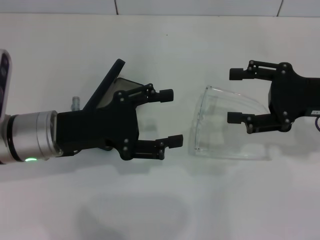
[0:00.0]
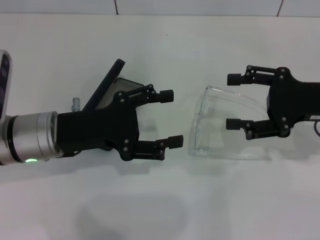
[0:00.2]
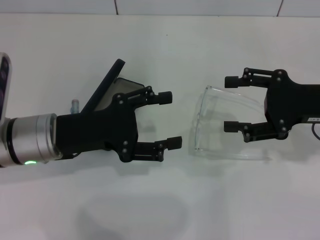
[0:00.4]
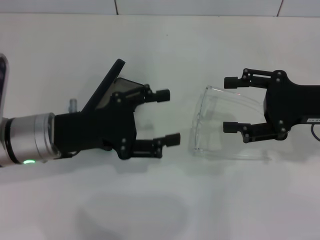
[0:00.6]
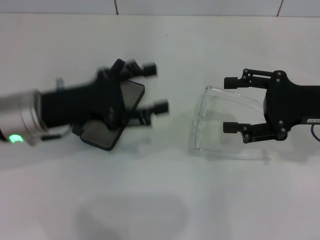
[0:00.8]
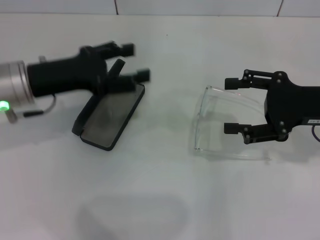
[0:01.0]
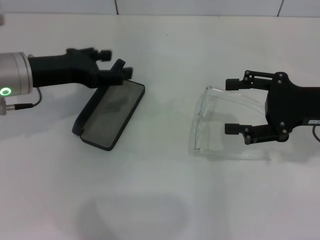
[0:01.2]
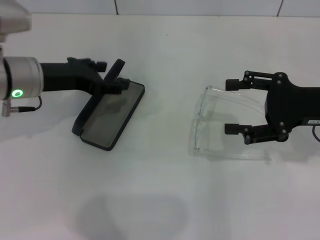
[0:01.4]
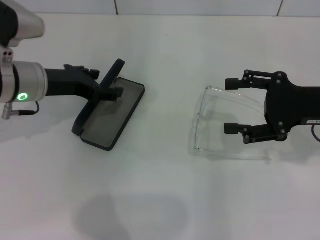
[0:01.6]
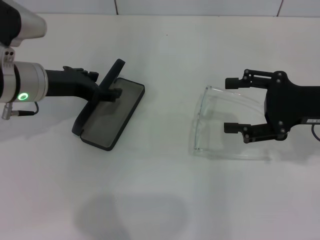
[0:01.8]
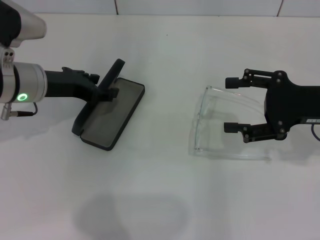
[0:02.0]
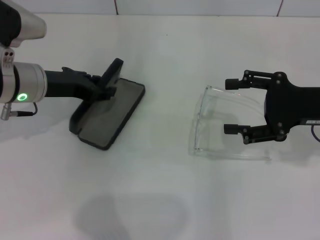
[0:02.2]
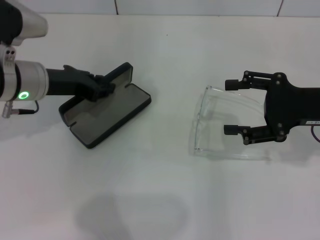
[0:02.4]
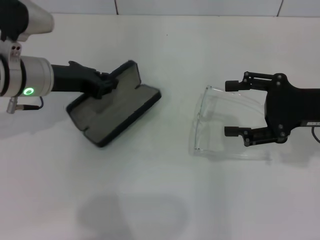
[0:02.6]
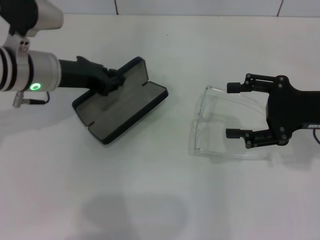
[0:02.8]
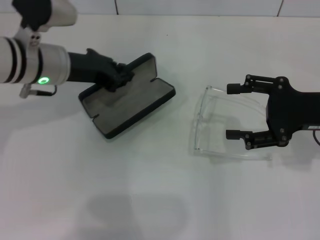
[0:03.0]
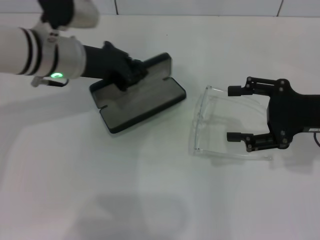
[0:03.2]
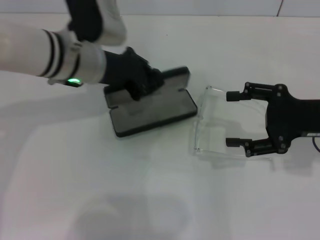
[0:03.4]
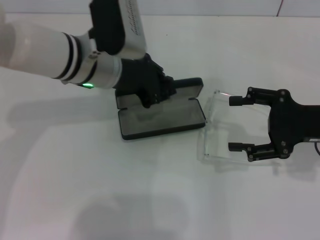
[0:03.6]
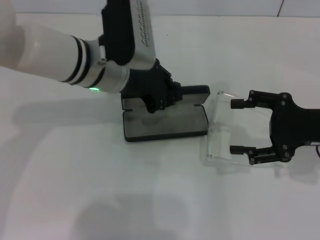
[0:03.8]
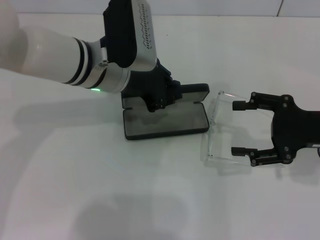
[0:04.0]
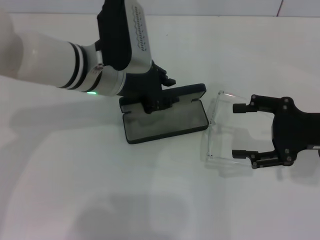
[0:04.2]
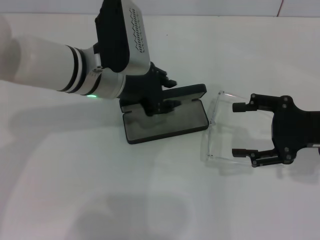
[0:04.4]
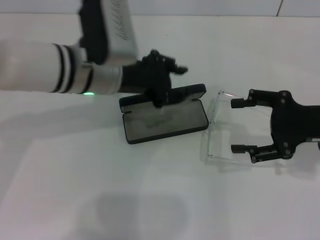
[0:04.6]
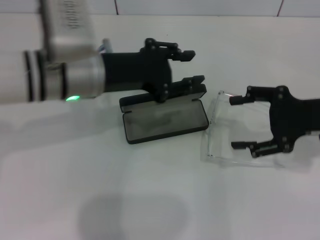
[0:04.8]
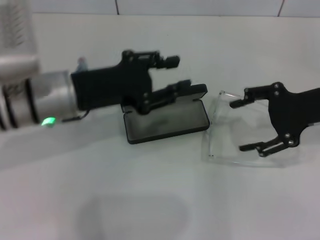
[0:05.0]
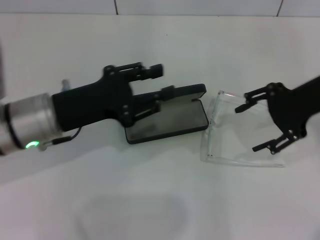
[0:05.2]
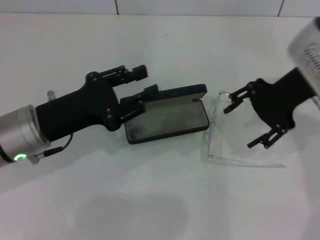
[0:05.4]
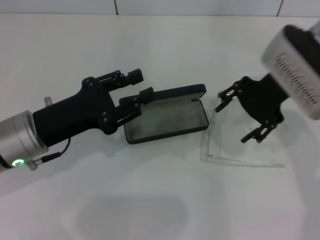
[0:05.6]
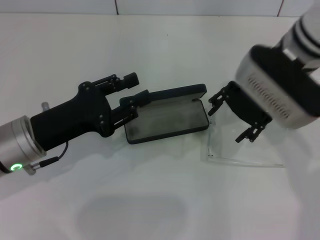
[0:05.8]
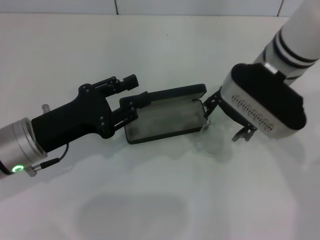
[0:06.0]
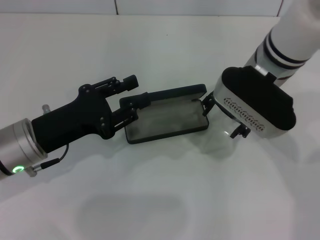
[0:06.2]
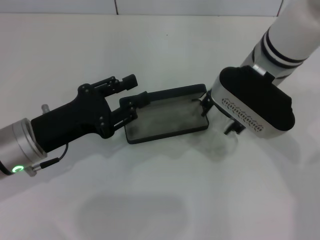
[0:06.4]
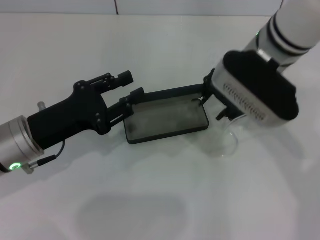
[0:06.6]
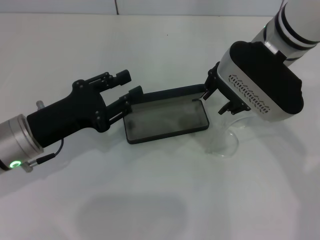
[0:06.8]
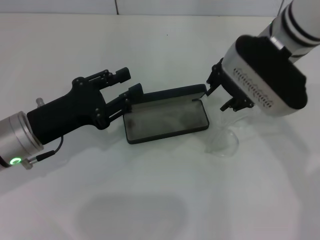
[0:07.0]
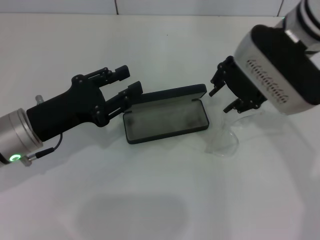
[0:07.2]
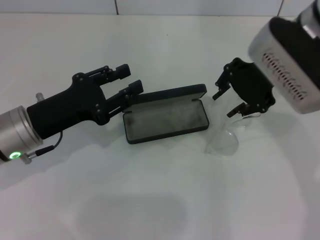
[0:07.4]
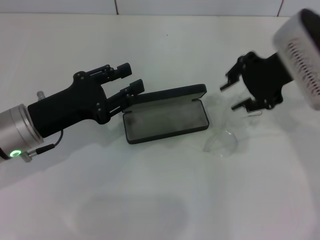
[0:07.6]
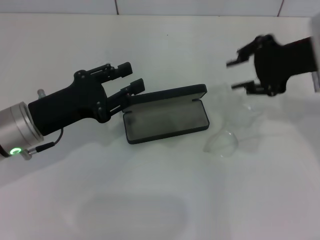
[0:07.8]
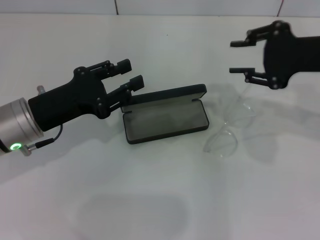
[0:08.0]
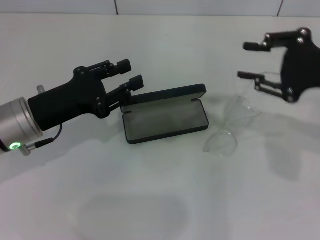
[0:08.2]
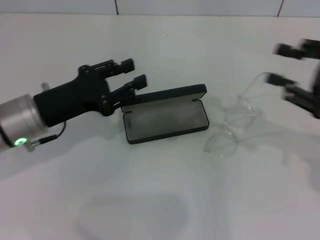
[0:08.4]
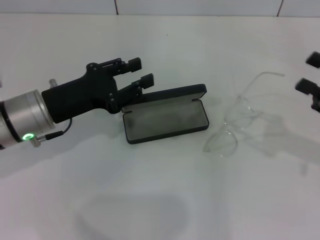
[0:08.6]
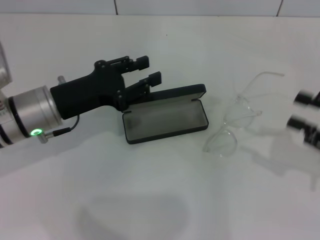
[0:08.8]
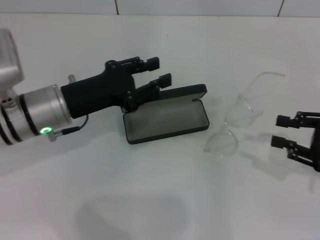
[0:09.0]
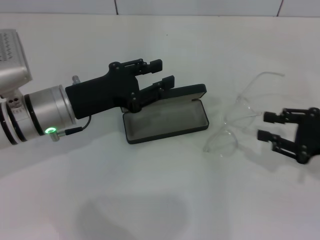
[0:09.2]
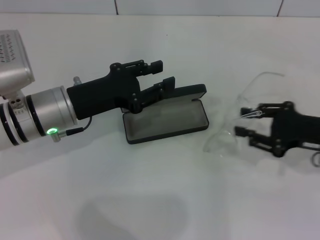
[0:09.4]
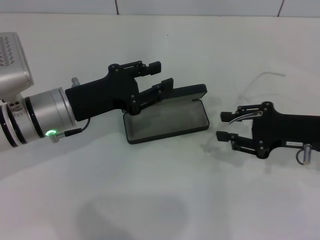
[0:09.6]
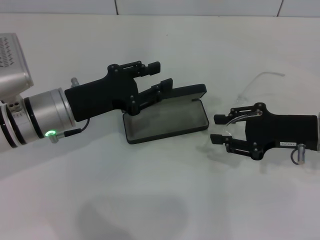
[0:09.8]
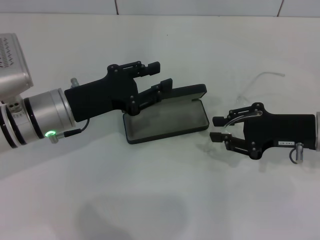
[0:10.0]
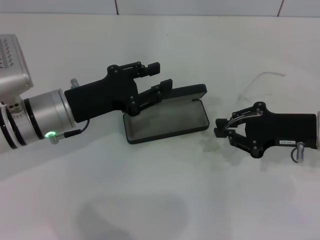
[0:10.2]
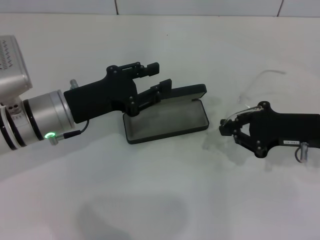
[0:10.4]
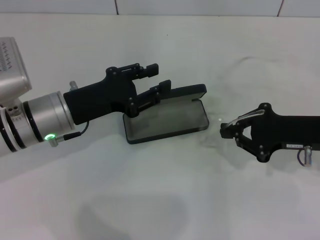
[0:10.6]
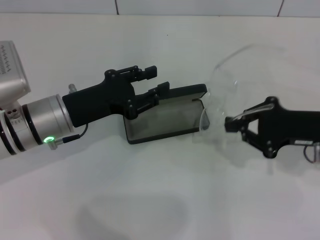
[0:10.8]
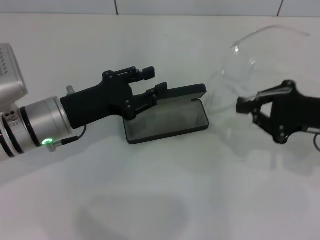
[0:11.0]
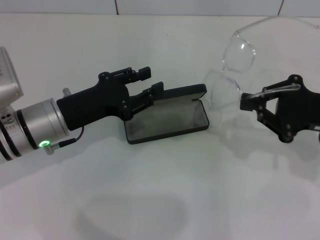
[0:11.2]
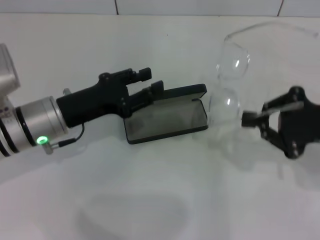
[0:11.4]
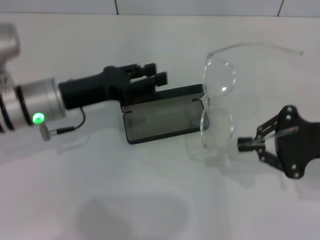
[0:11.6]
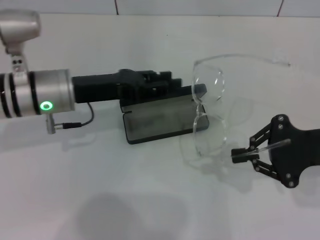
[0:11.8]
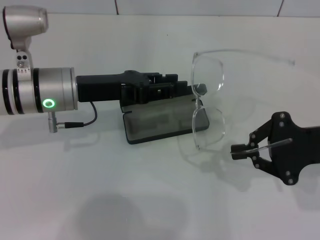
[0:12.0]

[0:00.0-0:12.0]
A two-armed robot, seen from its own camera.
Step, 0:00.0 to 0:02.2: Grab the glasses case with your left hand.
Step, 0:02.4 to 0:04.0: Place the glasses case in the center of the table with your left hand.
Step, 0:04.2 to 0:10.0: Grab the eyeglass frame with your right hand.
0:00.0 to 0:01.6: The left gripper goes roughly 10 cm forward.
0:01.6 to 0:03.0: The left gripper closes.
0:03.0 to 0:04.4: The left gripper is displaced to the right by roughly 10 cm.
0:04.4 to 0:06.0: The right gripper shifts some 15 cm to the left and forward. The left gripper shifts roughly 15 cm to the left, backward and downward.
0:06.0 to 0:07.6: The right gripper travels to the right by about 5 cm, and closes up.
0:07.6 to 0:09.0: The right gripper moves to the right, downward and backward, roughly 25 cm.
0:09.0 to 0:10.4: The right gripper goes roughly 10 cm to the left and forward.
0:10.4 to 0:12.0: The right gripper moves some 5 cm.

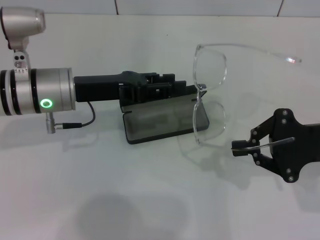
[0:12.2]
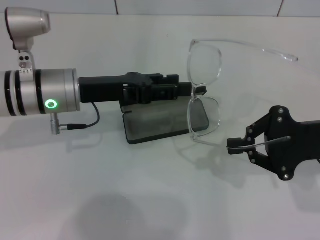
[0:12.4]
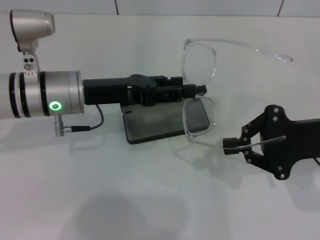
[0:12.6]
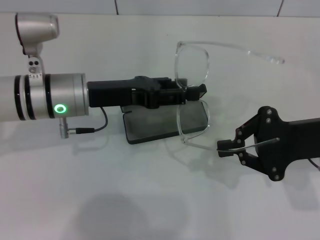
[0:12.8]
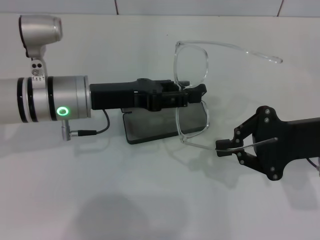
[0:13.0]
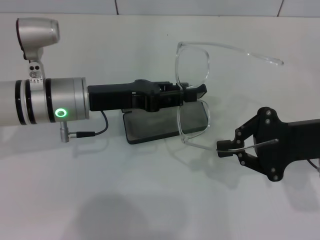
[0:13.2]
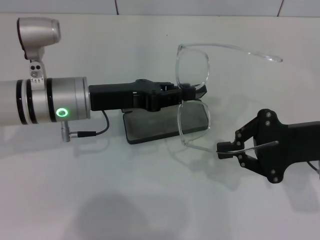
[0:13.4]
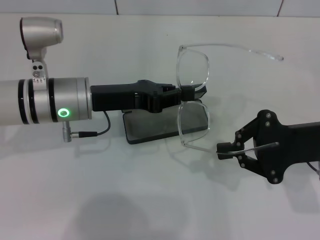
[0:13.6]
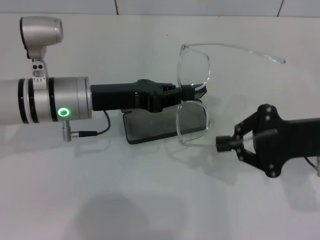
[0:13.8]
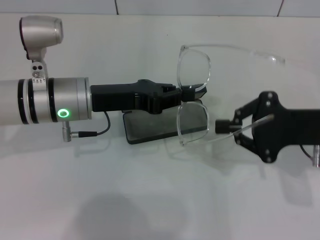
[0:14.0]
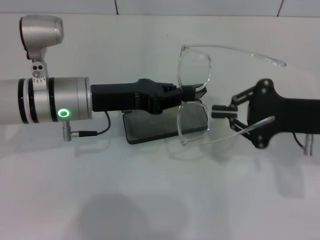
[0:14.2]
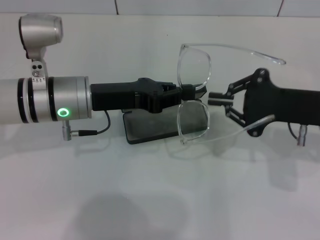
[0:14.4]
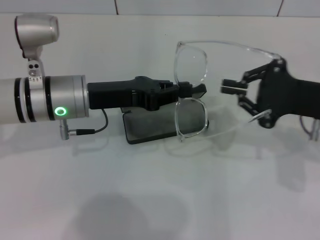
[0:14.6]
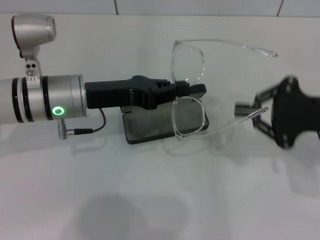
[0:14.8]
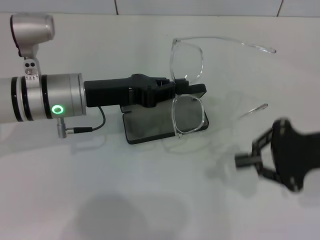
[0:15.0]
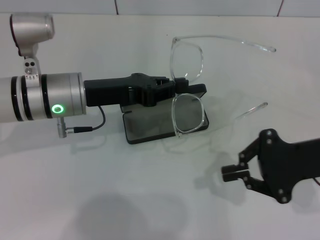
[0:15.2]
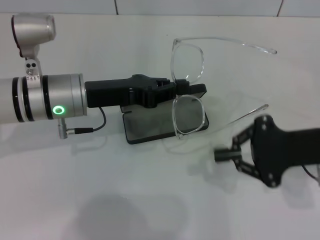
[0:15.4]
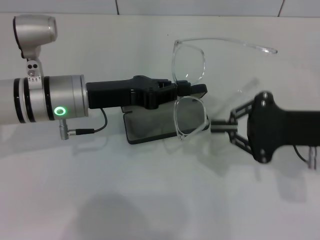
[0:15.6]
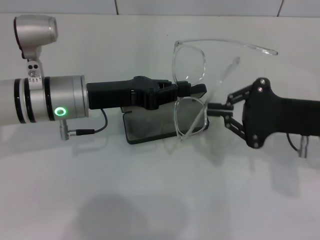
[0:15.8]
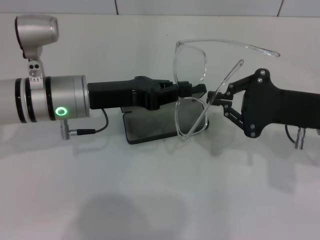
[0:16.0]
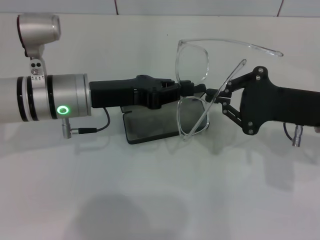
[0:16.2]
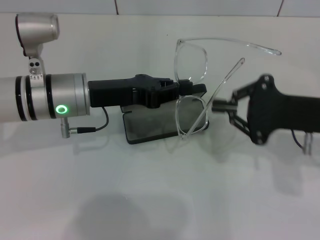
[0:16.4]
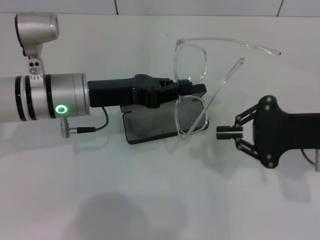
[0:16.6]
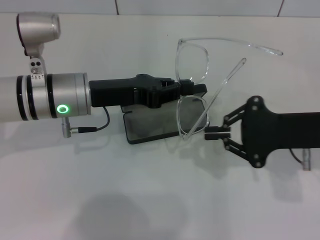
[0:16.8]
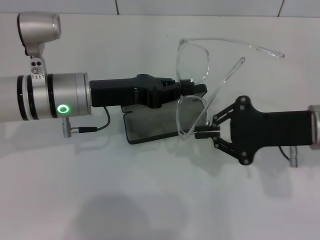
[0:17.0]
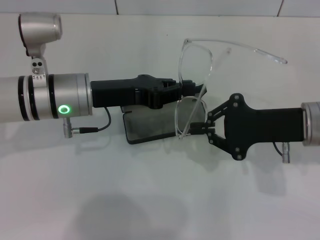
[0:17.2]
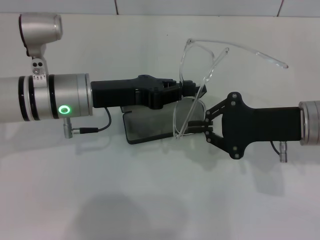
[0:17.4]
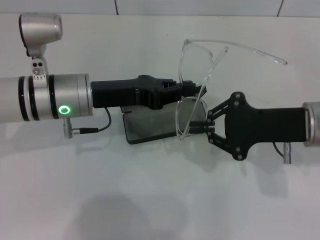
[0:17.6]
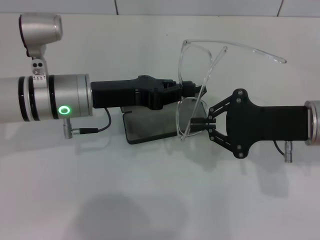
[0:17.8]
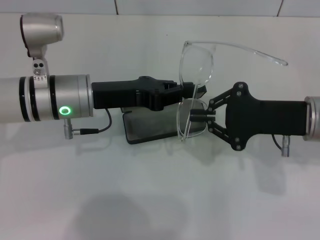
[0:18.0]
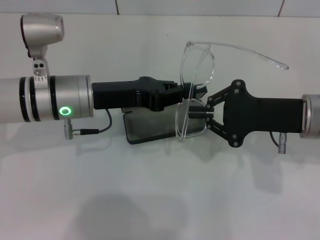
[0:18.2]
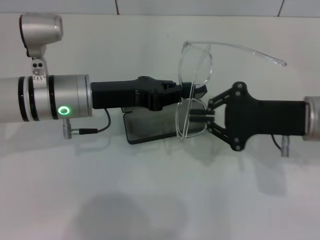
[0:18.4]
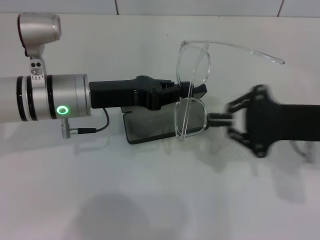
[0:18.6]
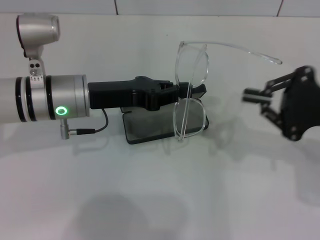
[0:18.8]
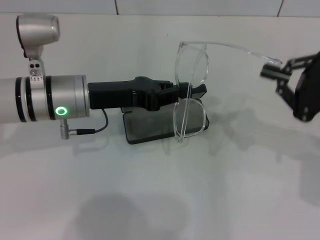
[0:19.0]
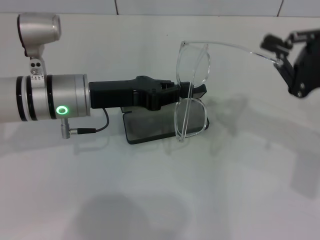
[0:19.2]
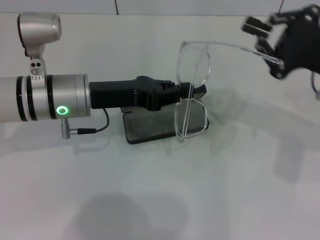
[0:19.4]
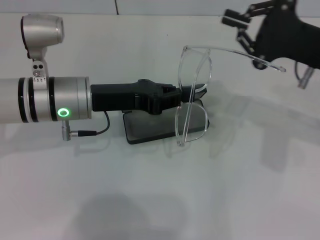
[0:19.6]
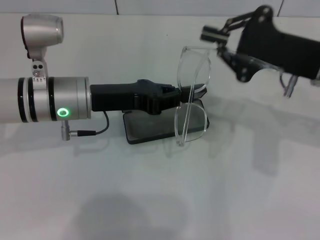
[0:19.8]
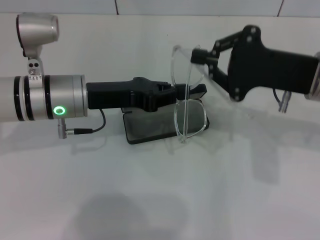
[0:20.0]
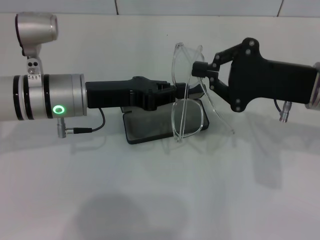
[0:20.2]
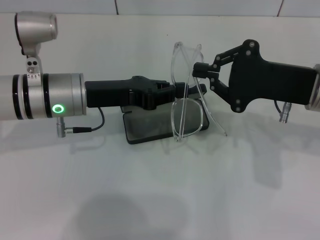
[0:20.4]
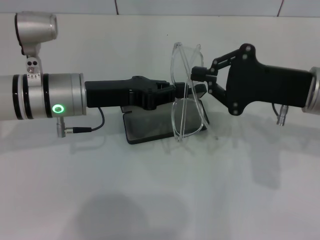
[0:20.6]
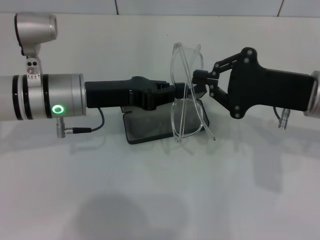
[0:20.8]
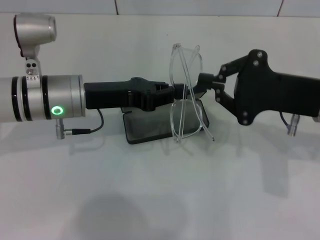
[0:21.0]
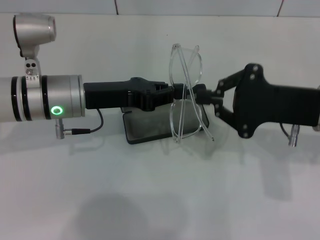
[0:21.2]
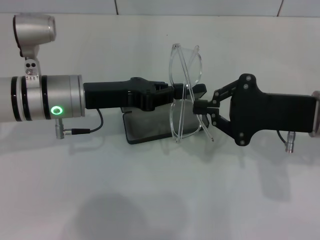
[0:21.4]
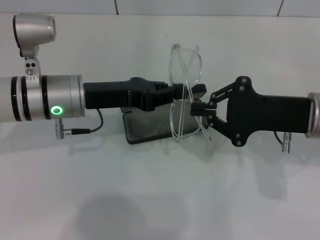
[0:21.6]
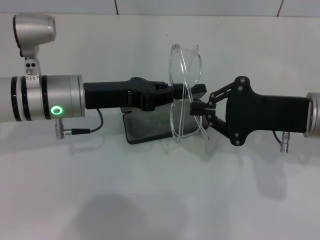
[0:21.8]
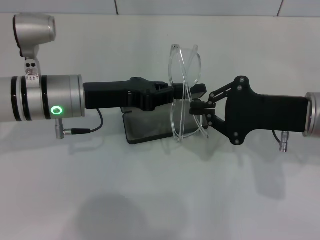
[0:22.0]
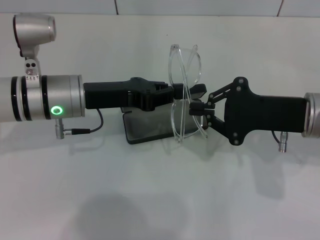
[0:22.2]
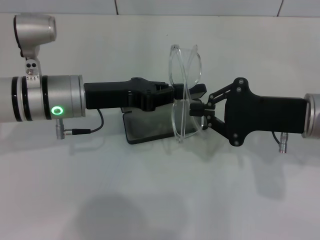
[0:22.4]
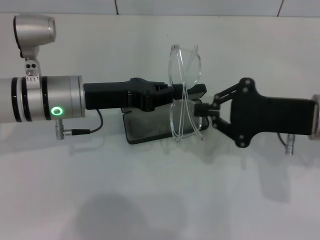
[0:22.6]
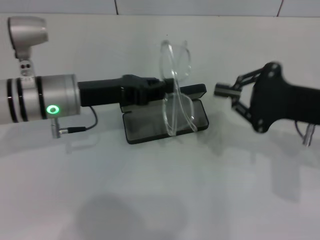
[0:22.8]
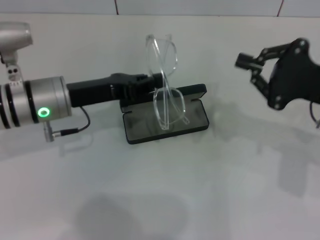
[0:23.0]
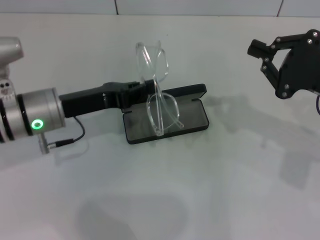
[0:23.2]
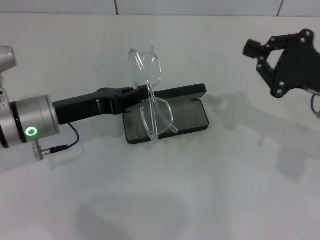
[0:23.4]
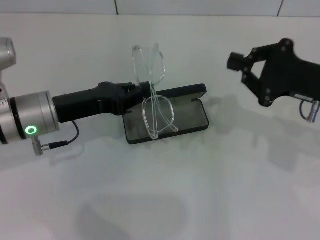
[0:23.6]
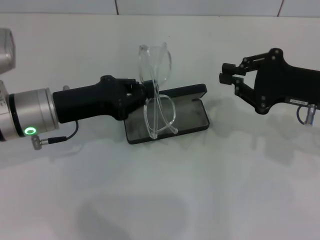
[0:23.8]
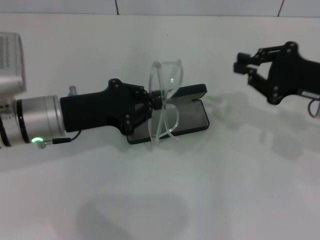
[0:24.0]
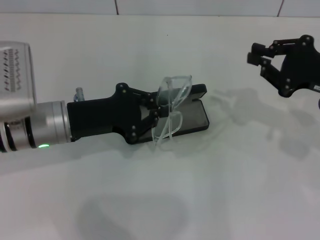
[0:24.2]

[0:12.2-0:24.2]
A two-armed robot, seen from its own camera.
Step, 0:13.8 to 0:22.4: Fold the frame with your right hand.
0:12.2 to 0:13.8: The left gripper closes.
0:13.8 to 0:15.2: The grippers move only a little.
0:16.6 to 0:18.2: The grippers stay close to where they were, moving slightly.
0:18.2 to 0:19.8: The right gripper goes to the right and returns, about 10 cm each way.
0:21.2 to 0:22.6: The grippers make only small movements.
0:22.6 to 0:24.2: The right gripper goes roughly 5 cm to the right.
